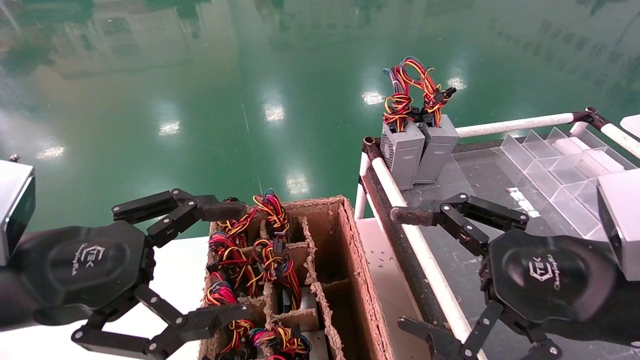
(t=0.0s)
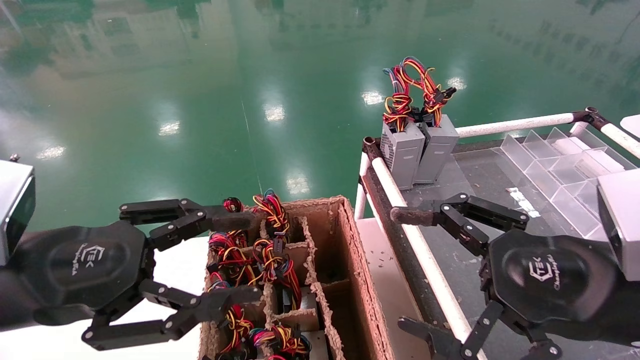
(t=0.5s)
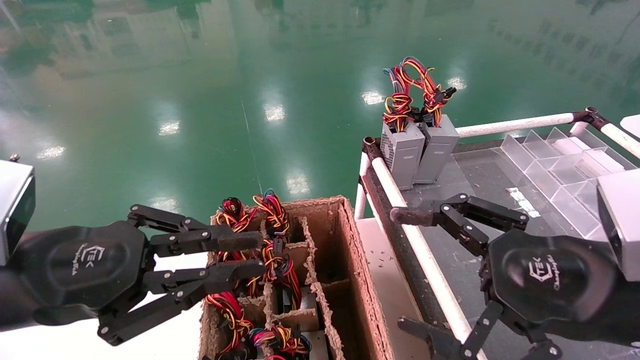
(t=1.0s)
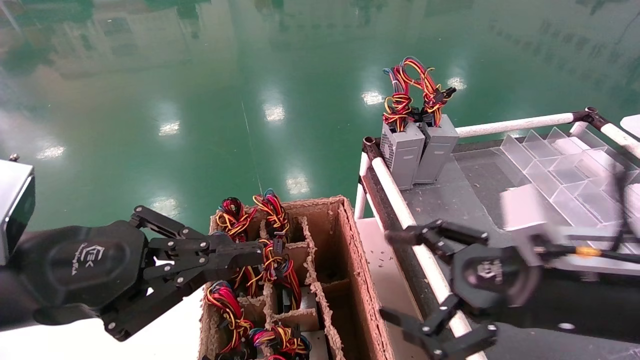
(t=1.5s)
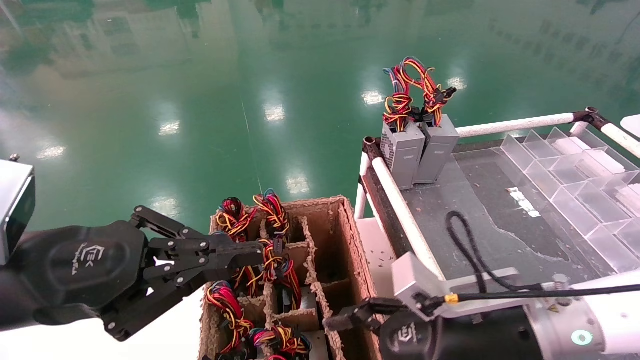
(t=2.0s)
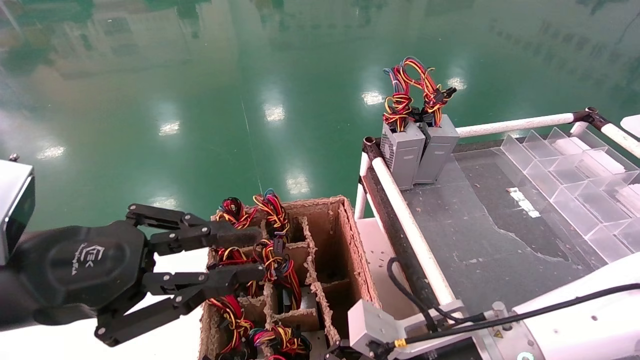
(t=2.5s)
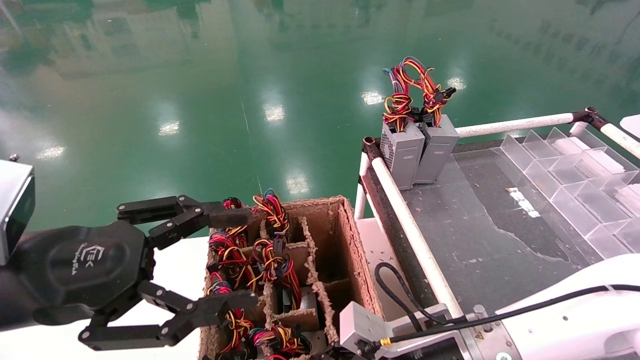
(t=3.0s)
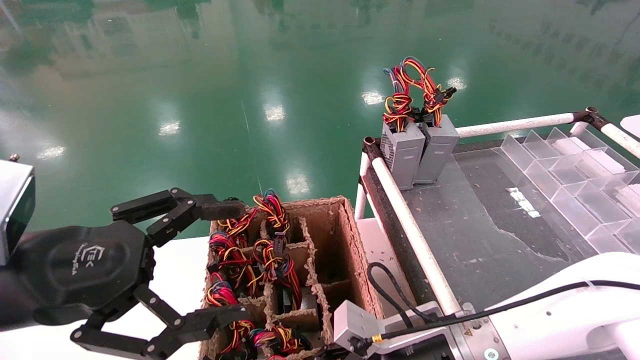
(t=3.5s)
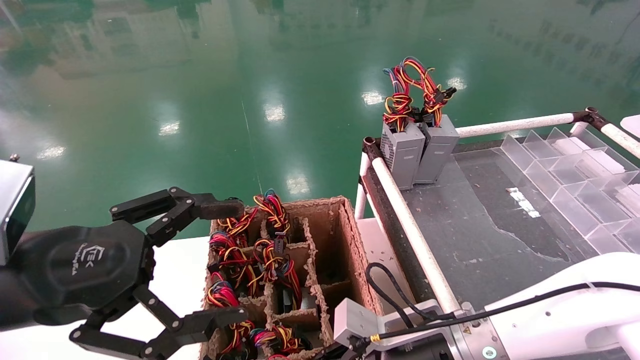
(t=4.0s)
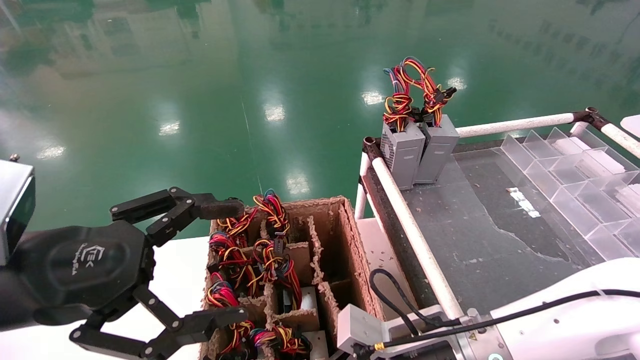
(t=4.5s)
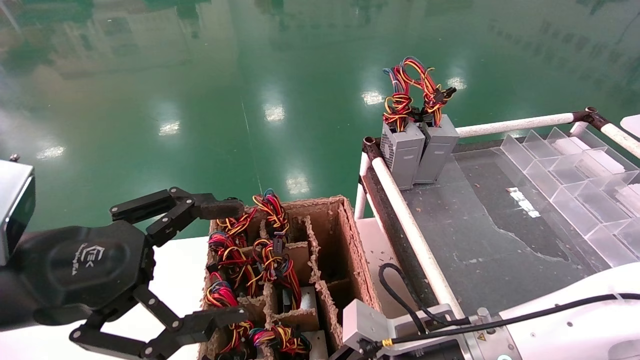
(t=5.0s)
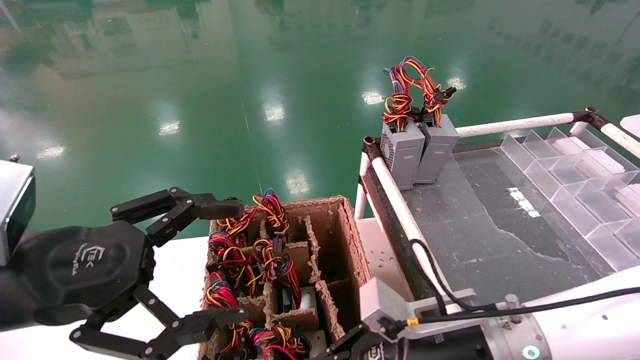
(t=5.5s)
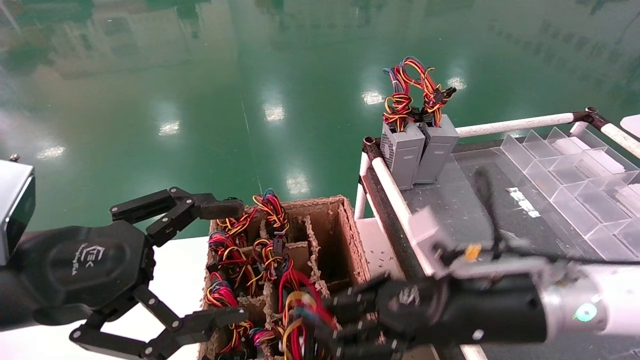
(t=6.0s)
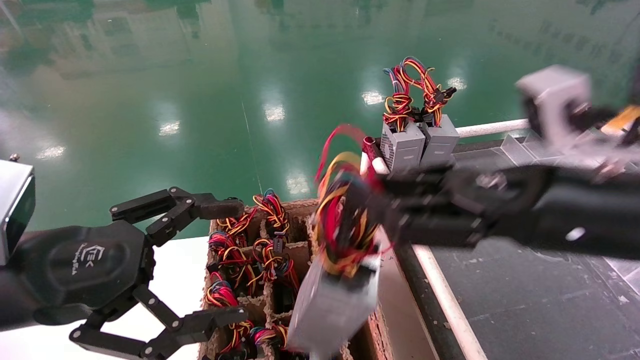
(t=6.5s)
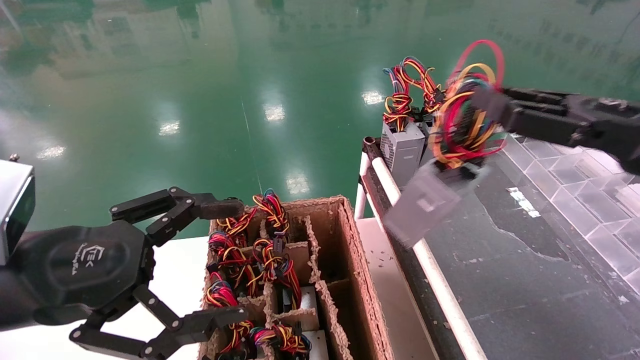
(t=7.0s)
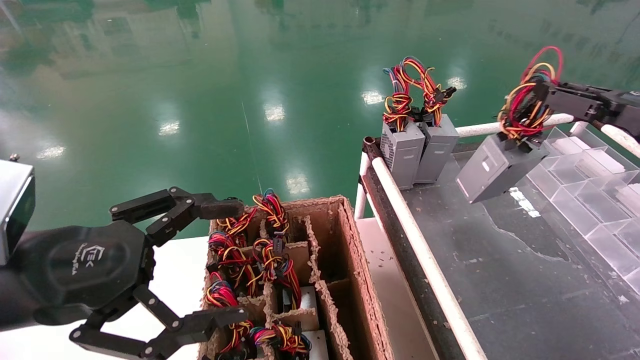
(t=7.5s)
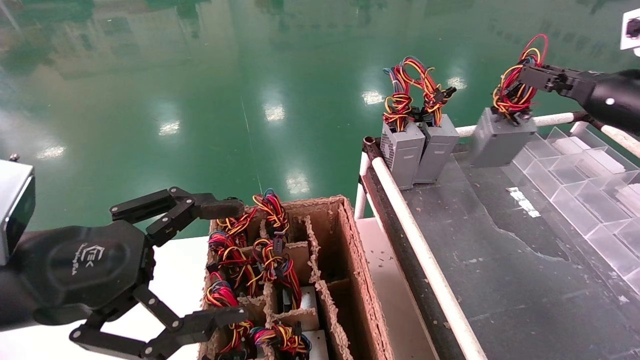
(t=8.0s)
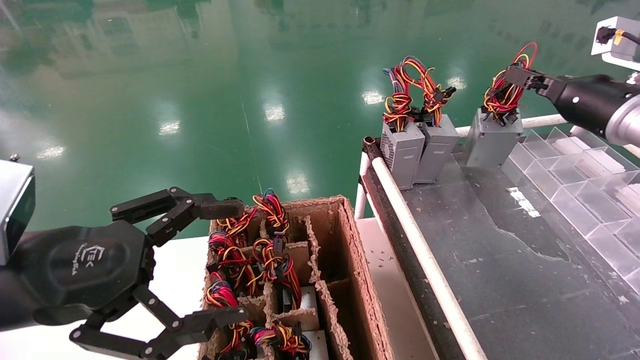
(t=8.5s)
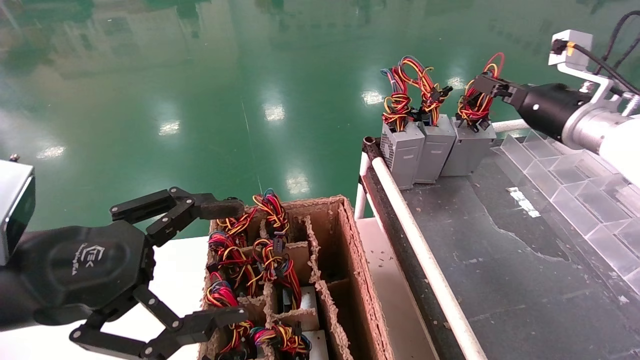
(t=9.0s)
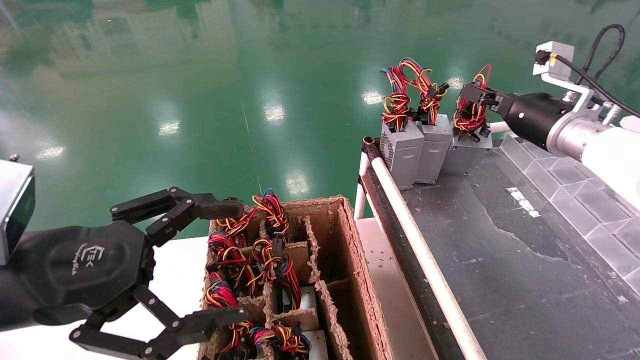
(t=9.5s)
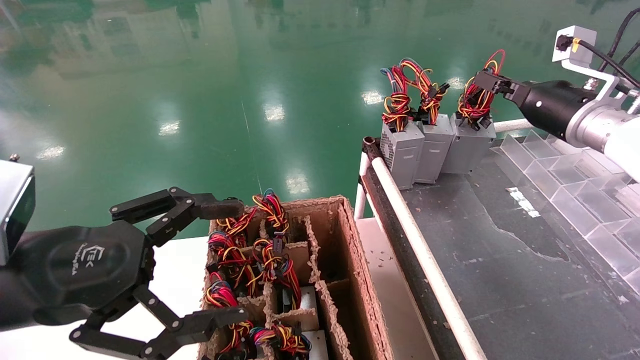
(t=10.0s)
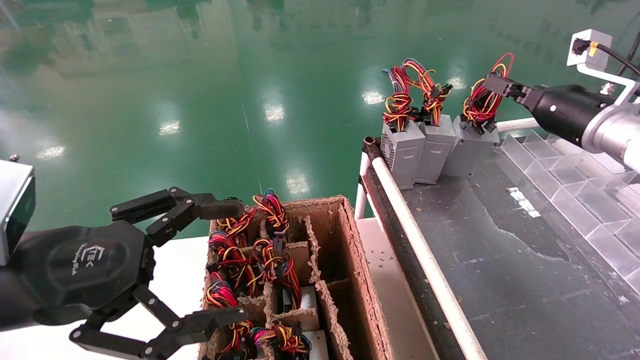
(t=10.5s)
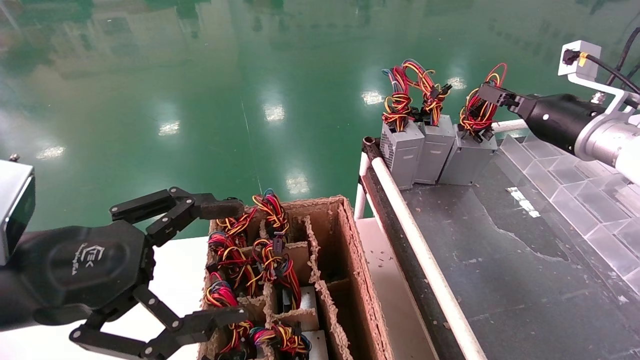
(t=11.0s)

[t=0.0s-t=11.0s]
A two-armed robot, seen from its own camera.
Step, t=1.5s to t=4.5s: Grab and lift the power supply from the large box.
t=0.0s to t=2.0s: The right gripper moves downward, to the left and forward, approximately 15 cm. Meanwhile the left gripper closes its fingers.
t=2.0s to t=3.5s: The right gripper moves downward, about 5 cm. The left gripper opens.
t=3.5s to t=5.5s: The right gripper closes its fingers.
t=5.5s to t=7.5s: The right gripper is displaced to the right and upward by roughly 35 cm.
t=7.5s to t=9.0s: The right gripper shifts approximately 15 cm forward and to the left.
t=9.0s to t=11.0s: The grippers move only a little.

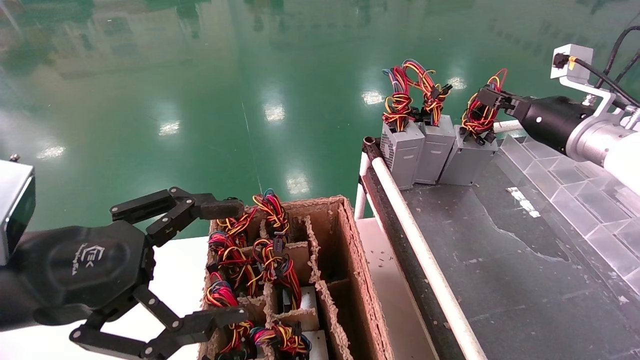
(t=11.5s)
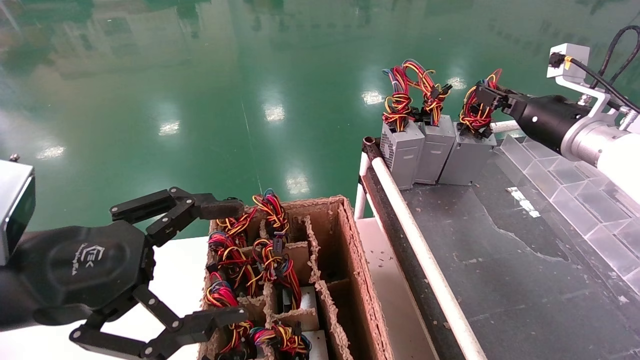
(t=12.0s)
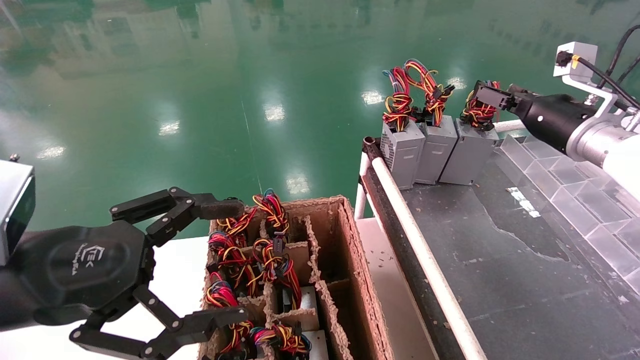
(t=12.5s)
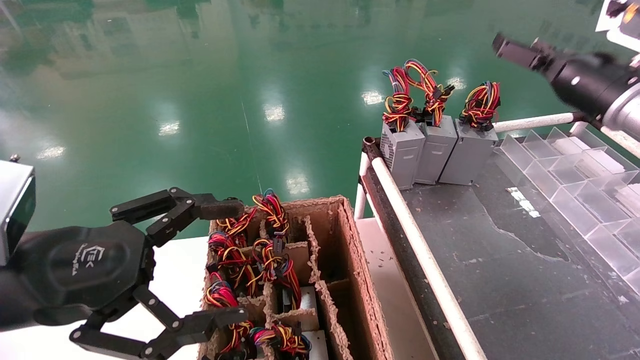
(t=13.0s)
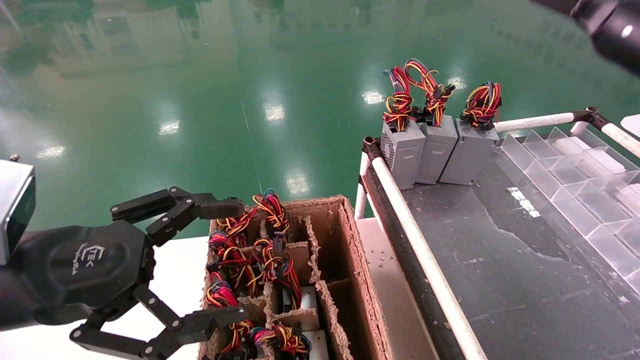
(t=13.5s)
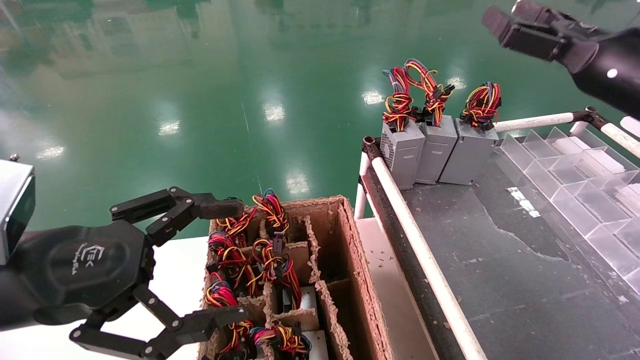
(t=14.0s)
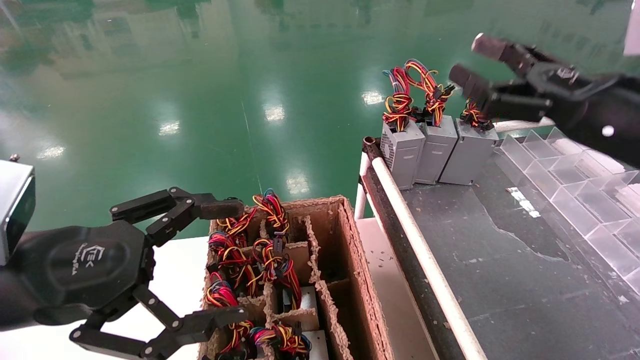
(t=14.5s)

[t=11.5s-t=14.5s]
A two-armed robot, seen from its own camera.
t=11.5s to t=13.0s: The right gripper moves upward, about 5 cm, and opens up.
t=13.0s to t=14.5s: The right gripper heads backward and to the left, covering approximately 15 cm.

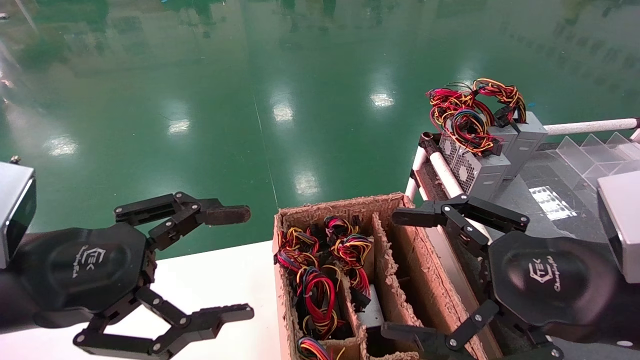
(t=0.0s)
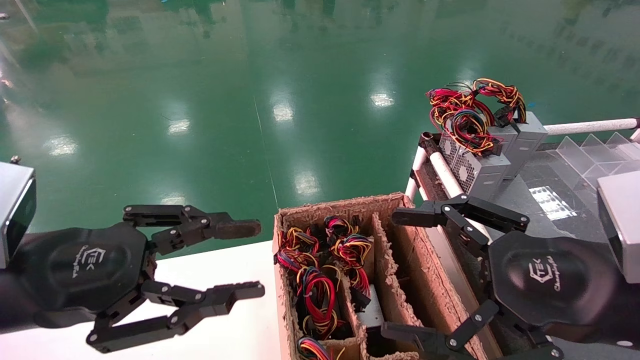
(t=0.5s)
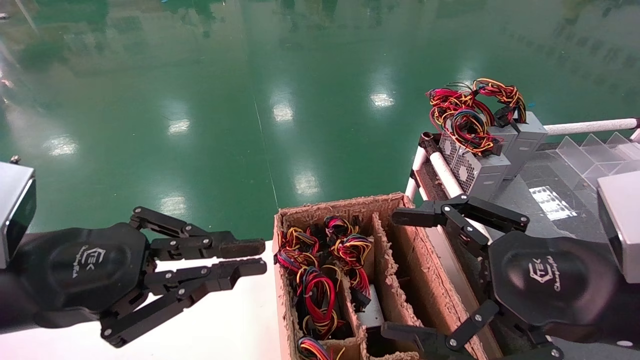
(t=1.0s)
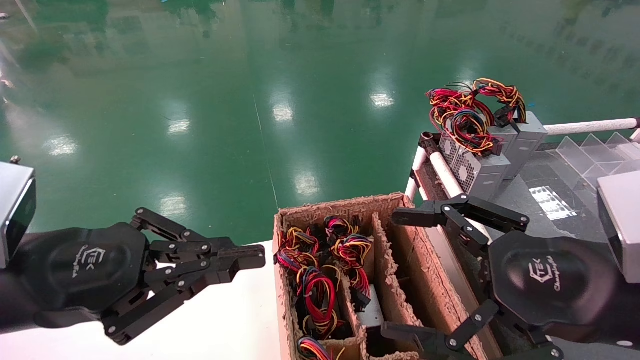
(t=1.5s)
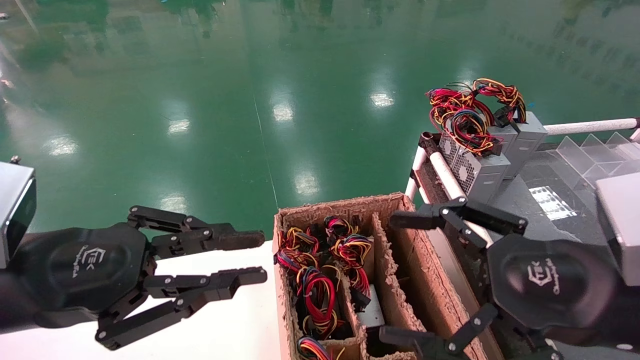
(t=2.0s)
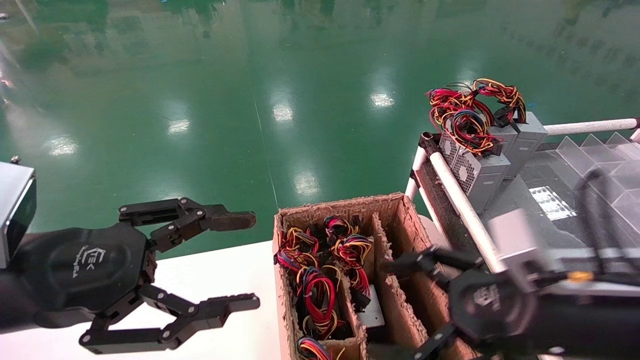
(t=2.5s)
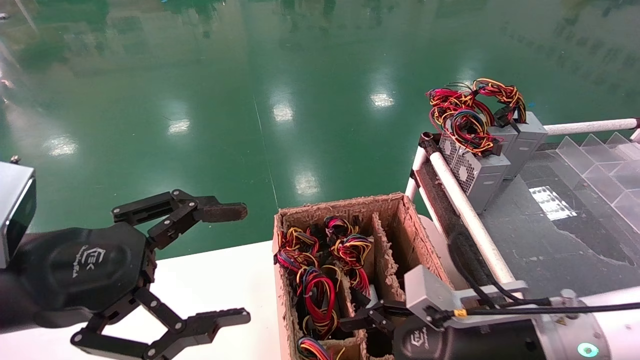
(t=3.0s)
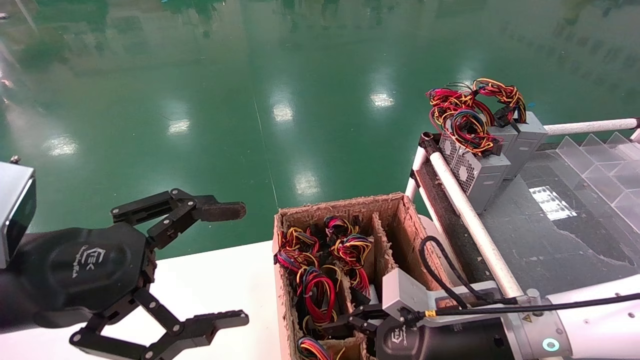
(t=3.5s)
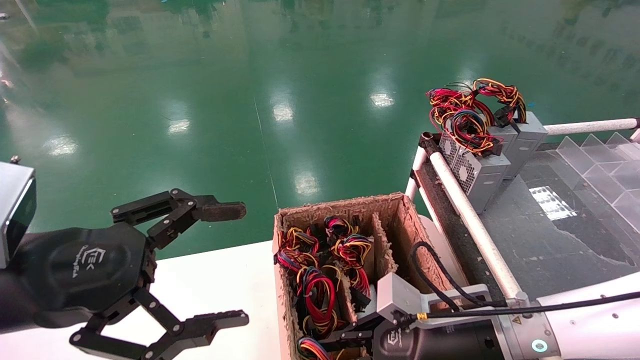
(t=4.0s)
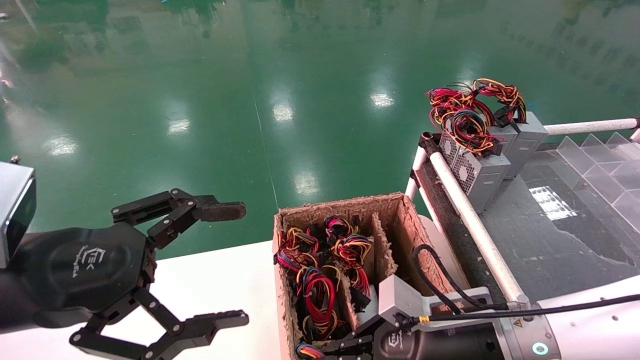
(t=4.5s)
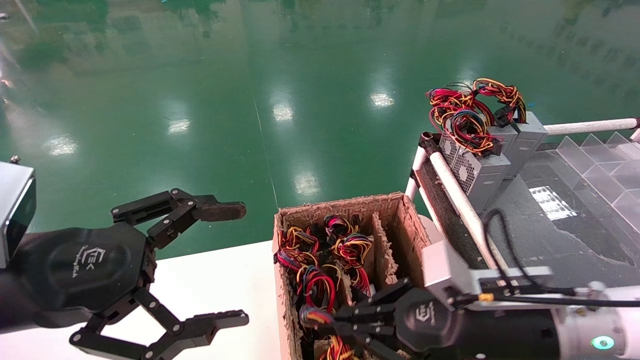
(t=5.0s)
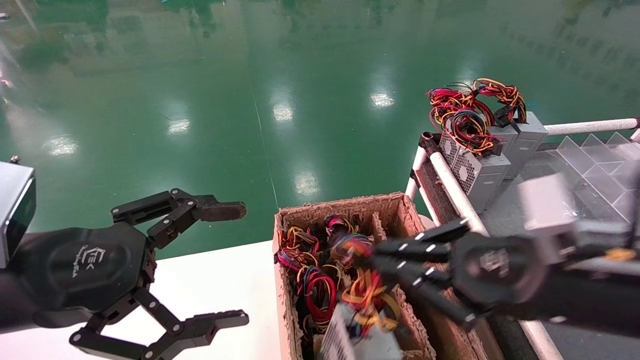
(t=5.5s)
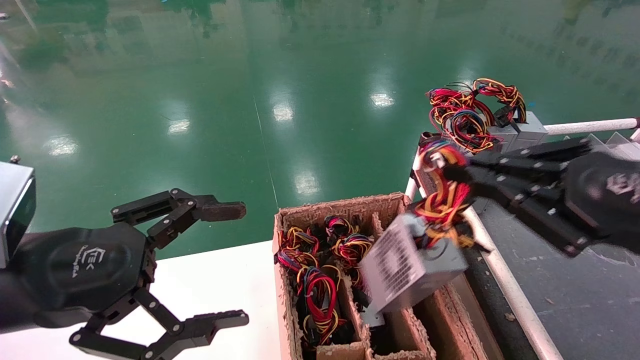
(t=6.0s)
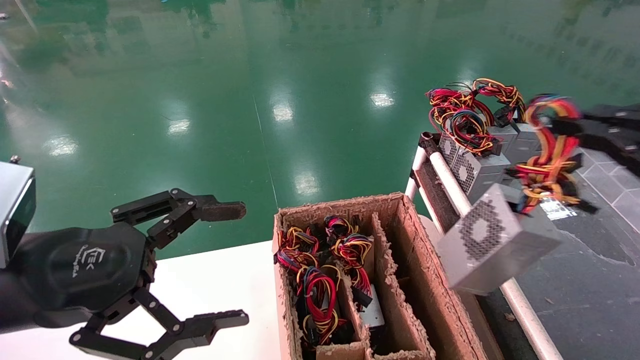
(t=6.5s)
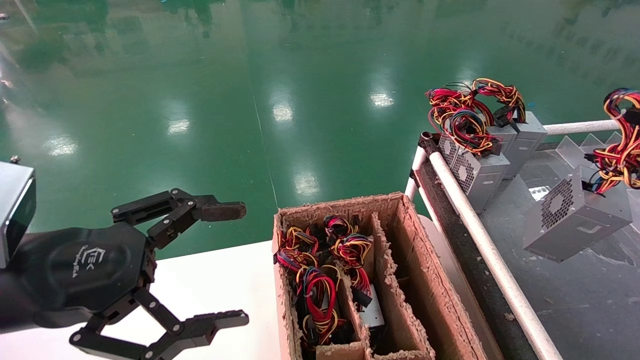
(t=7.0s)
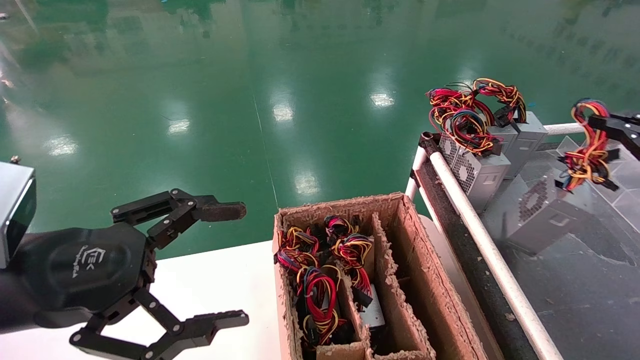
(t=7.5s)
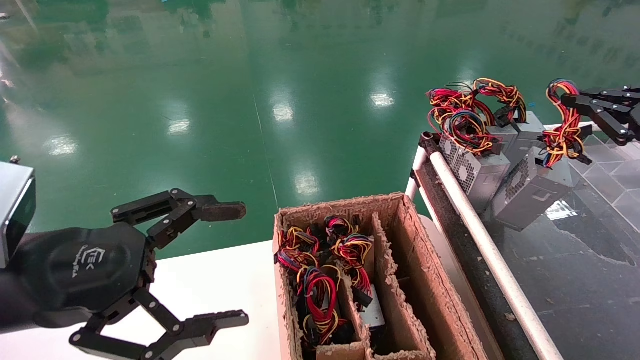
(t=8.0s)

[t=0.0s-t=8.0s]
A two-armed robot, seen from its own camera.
Step, t=1.5s to t=4.5s: Grab and lift the power supply from the large box.
t=0.0s to t=2.0s: The left gripper closes its fingers.
t=2.0s to t=4.0s: The left gripper opens. Meanwhile the right gripper goes about 20 cm downward, forward and to the left, and closes.
t=4.0s to t=6.0s: The right gripper is displaced upward, to the right and backward by some 25 cm.
t=6.0s to t=8.0s: The right gripper shifts about 20 cm to the right and forward.
